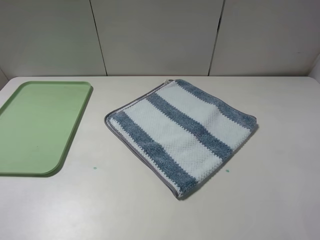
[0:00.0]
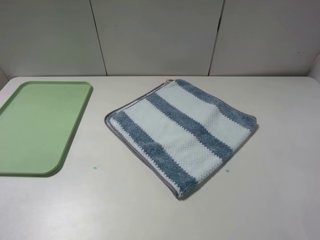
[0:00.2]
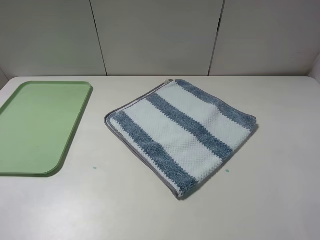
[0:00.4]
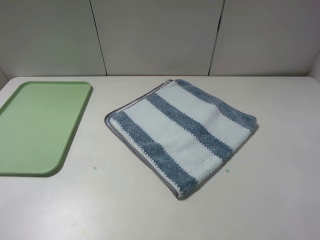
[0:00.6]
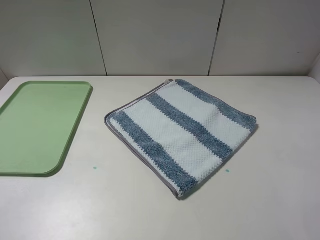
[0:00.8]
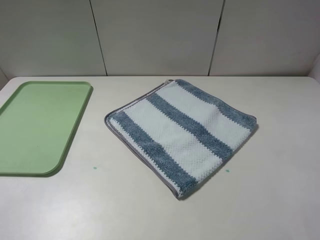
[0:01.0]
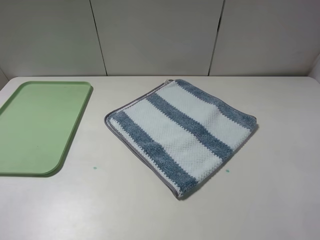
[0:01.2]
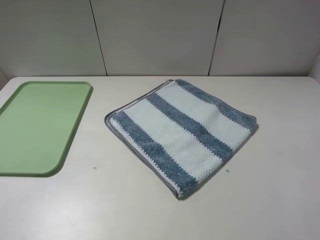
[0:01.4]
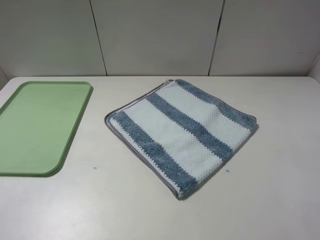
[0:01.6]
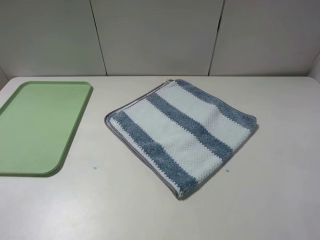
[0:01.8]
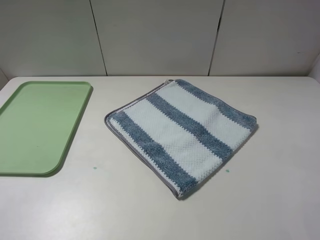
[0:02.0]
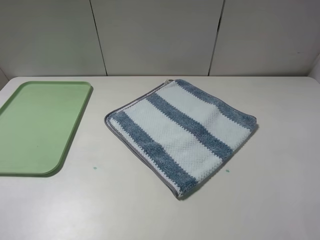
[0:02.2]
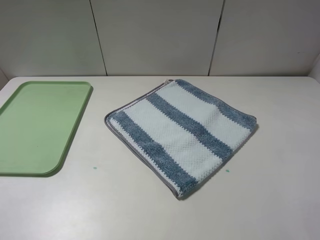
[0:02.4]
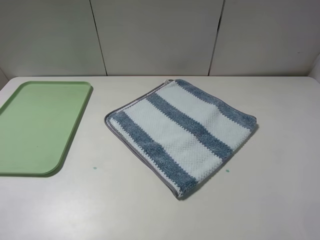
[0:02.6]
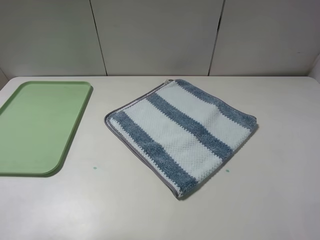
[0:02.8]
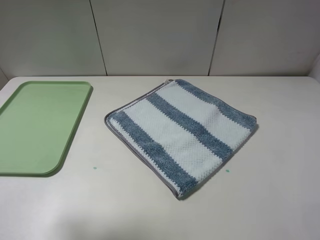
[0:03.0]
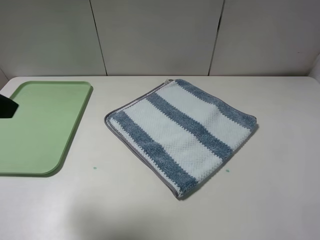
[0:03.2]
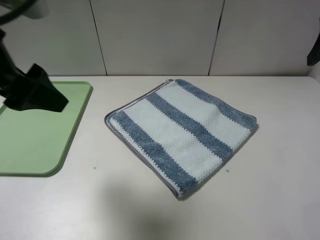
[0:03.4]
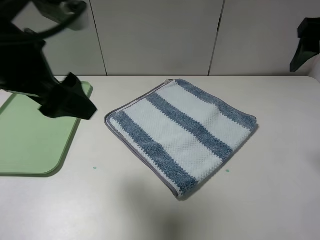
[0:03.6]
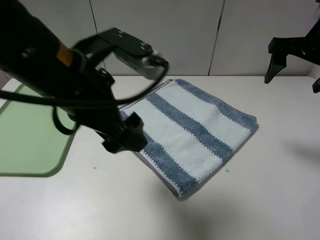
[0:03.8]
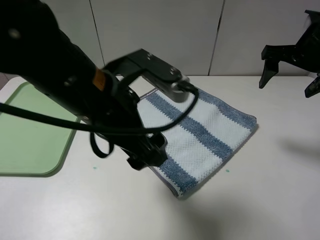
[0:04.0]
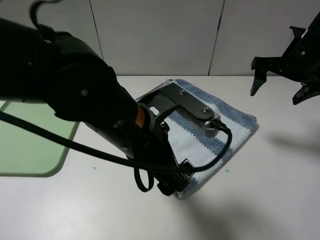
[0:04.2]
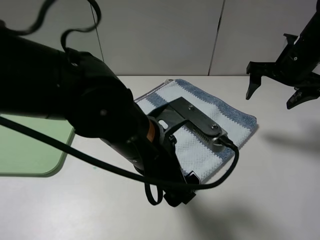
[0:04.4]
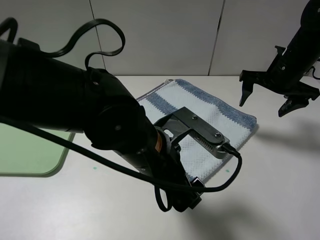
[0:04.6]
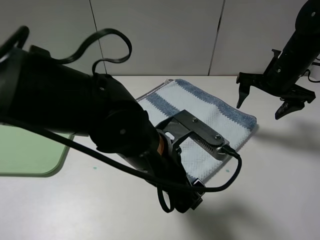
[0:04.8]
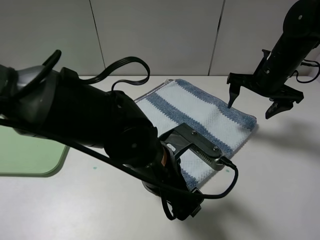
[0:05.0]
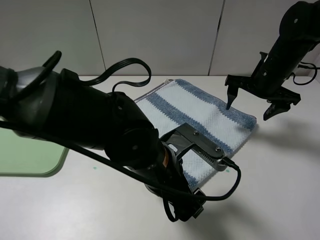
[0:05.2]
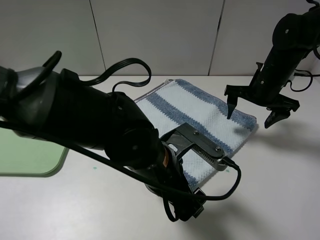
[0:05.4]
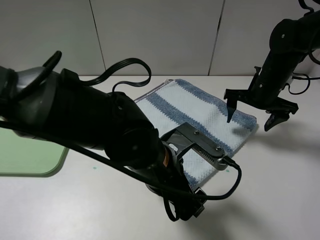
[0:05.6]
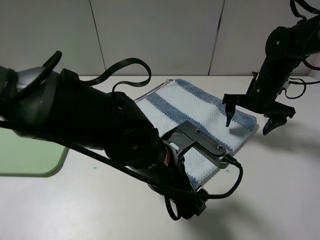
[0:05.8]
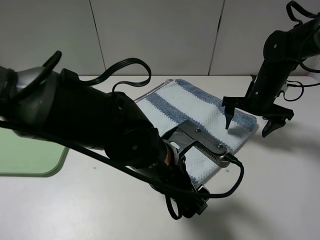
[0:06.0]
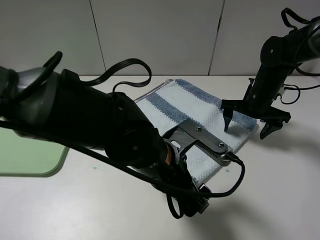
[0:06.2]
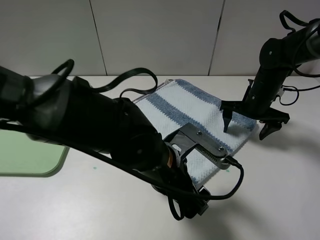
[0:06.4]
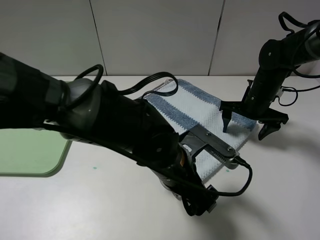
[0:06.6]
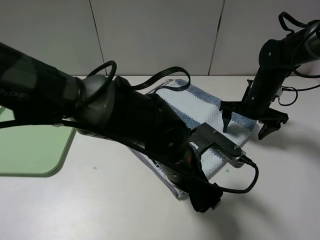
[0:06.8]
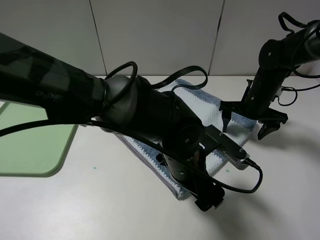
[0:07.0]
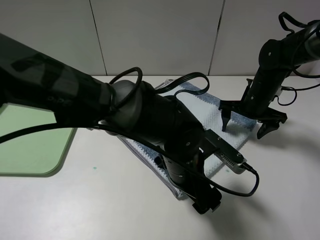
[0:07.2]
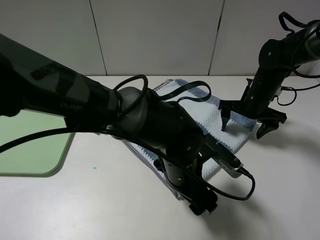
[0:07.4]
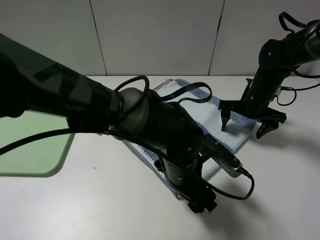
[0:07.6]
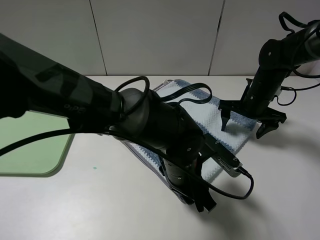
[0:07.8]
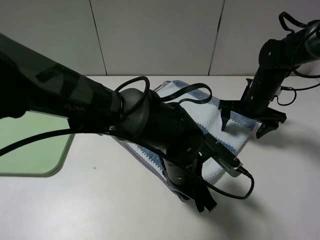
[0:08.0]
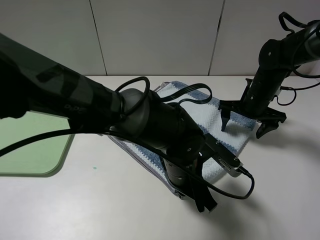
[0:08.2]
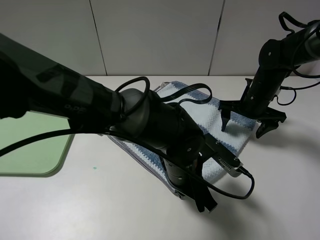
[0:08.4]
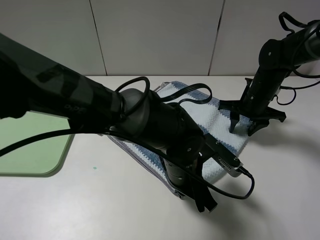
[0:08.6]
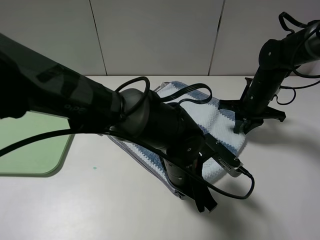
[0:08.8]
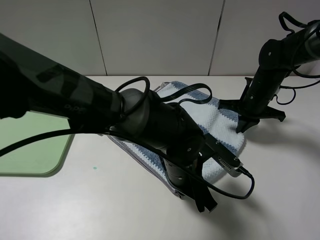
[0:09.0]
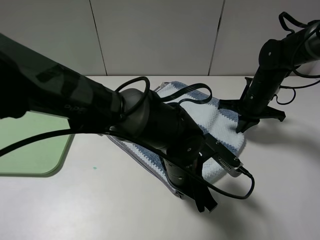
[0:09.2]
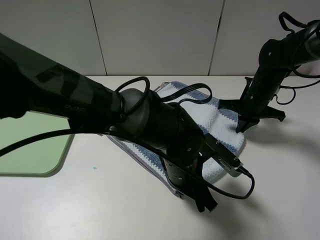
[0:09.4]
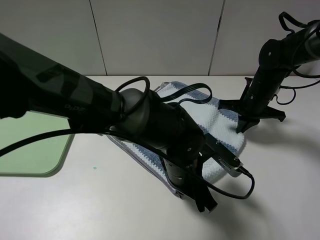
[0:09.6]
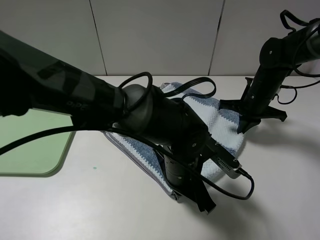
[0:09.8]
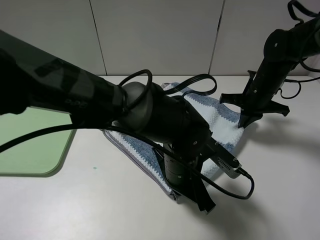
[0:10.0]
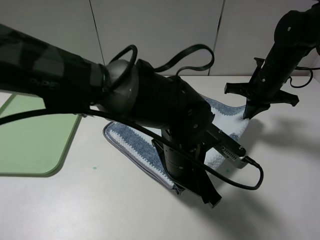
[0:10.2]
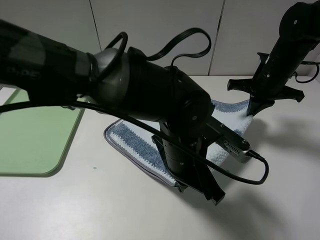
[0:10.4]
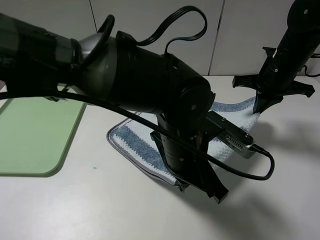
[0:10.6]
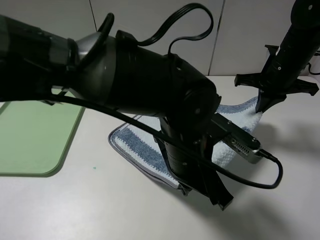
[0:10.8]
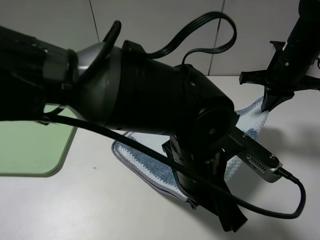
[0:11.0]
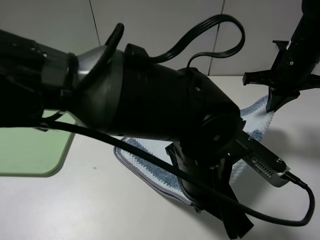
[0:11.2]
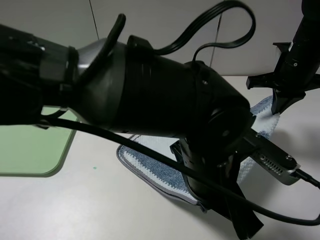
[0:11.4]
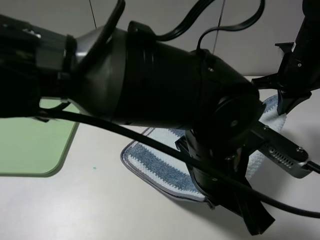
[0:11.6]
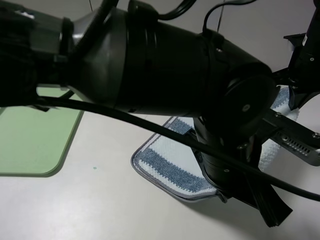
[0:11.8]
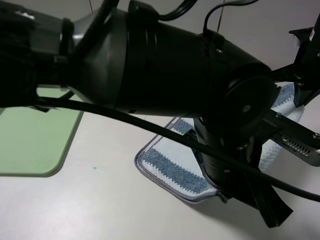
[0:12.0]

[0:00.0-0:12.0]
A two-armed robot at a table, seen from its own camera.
Step, 0:00.0 to 0:08.0: Grasp the blue white towel with the left gripper.
Step, 0:08.2 to 0:09.2: Grasp the blue white towel with the right gripper.
0:00.0 to 0:01.6: Both grippers stay put.
0:01.6 to 0:03.0: The grippers both shift forward and upward by some 15 cm.
0:03.0 to 0:04.4: The left gripper shifts approximately 30 cm to the right and downward. The right gripper travels forward and downward by about 25 cm.
0:04.4 to 0:06.0: The right gripper shifts some 10 cm downward.
0:06.0 to 0:07.6: The left gripper shifts some 5 cm downward.
0:07.6 to 0:09.0: The left gripper closes up. Meanwhile the right gripper closes its fingers.
0:09.0 to 0:10.4: Both grippers travel together upward, roughly 5 cm.
0:10.4 to 0:12.0: The grippers both shift upward by some 5 cm.

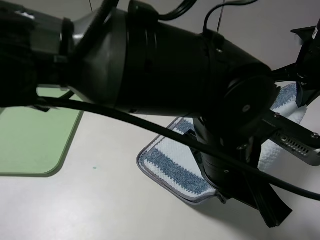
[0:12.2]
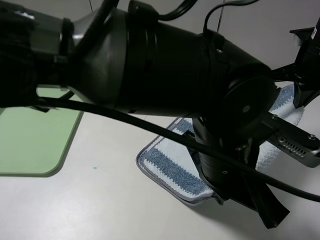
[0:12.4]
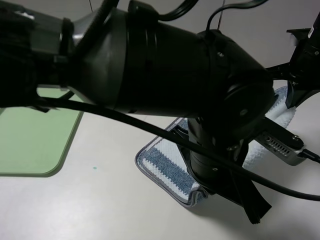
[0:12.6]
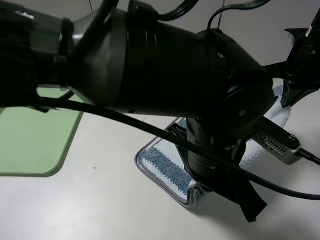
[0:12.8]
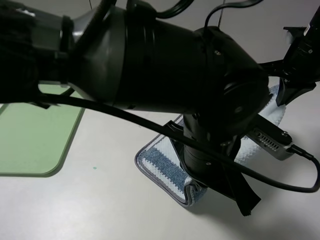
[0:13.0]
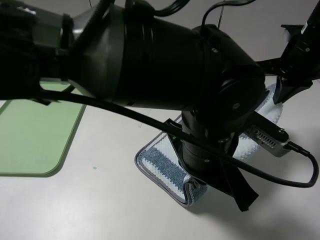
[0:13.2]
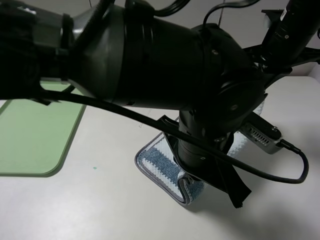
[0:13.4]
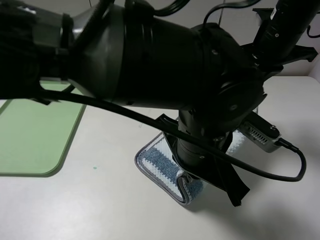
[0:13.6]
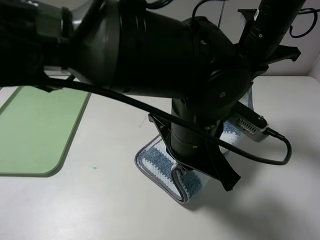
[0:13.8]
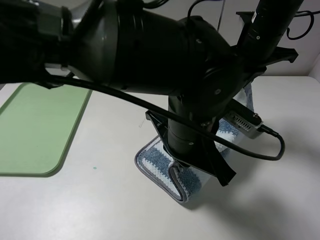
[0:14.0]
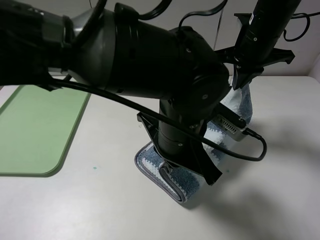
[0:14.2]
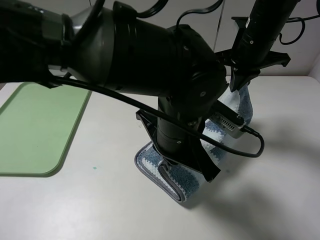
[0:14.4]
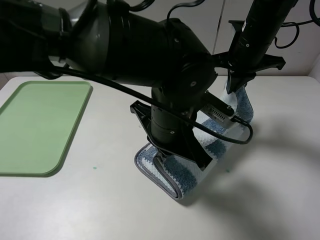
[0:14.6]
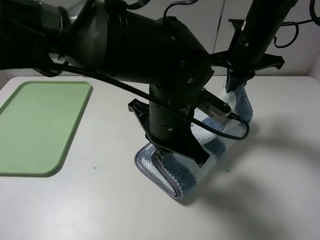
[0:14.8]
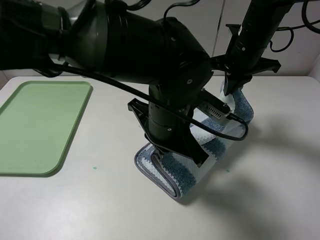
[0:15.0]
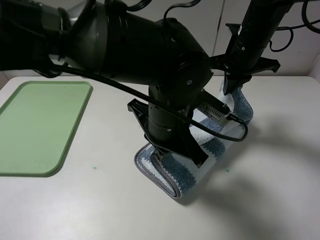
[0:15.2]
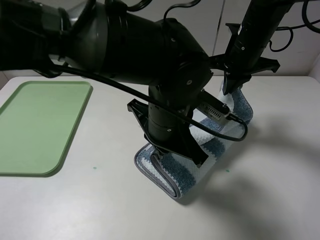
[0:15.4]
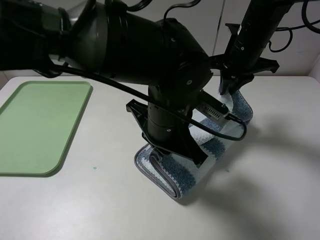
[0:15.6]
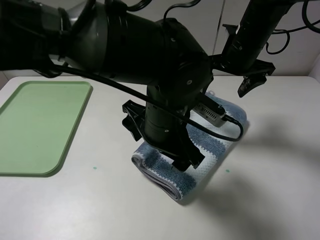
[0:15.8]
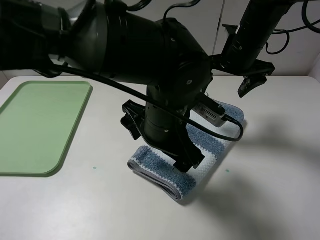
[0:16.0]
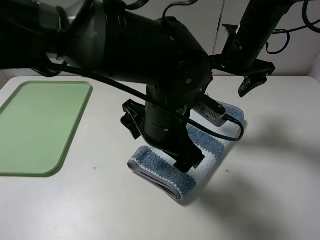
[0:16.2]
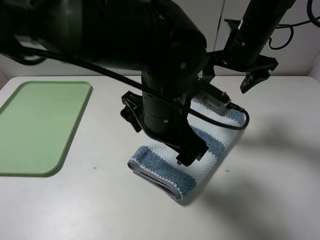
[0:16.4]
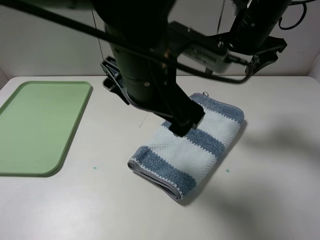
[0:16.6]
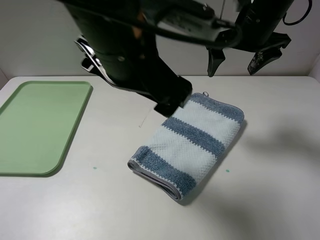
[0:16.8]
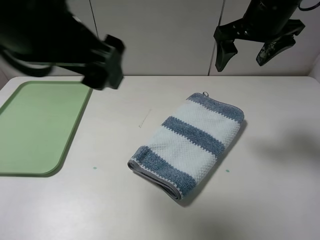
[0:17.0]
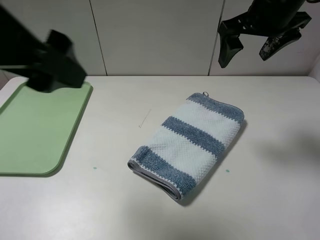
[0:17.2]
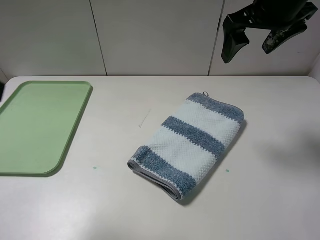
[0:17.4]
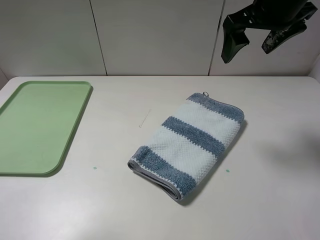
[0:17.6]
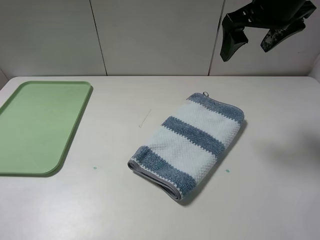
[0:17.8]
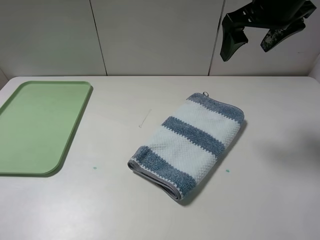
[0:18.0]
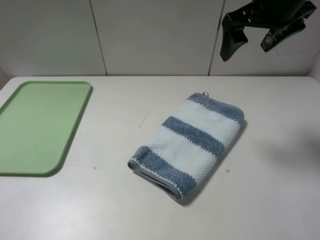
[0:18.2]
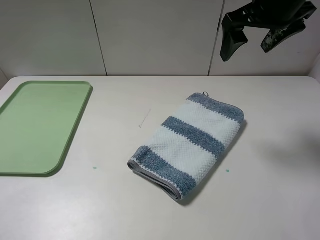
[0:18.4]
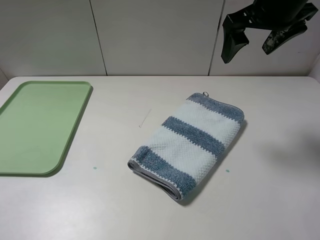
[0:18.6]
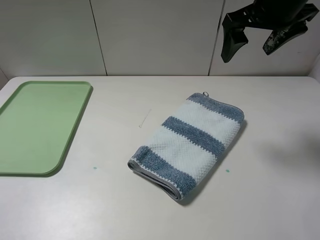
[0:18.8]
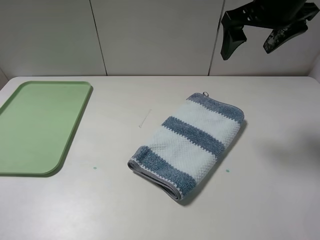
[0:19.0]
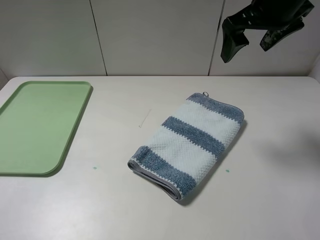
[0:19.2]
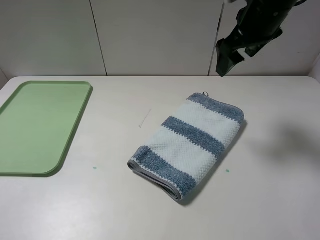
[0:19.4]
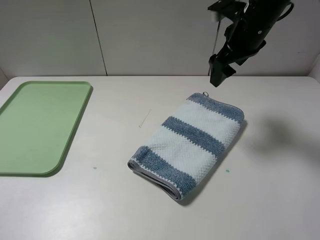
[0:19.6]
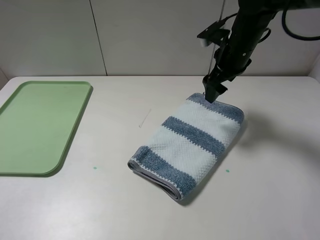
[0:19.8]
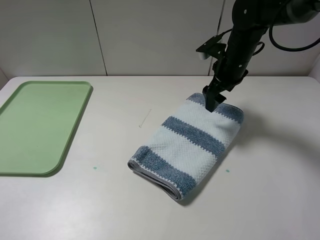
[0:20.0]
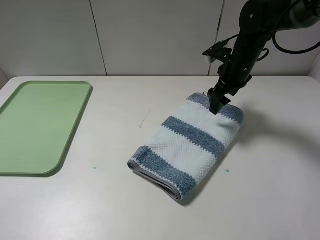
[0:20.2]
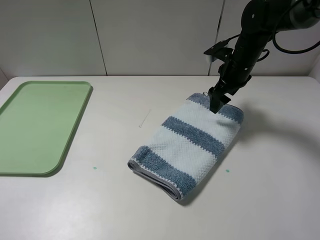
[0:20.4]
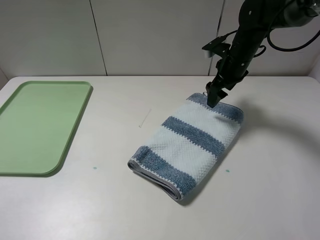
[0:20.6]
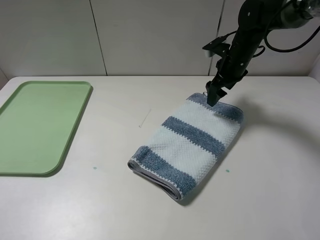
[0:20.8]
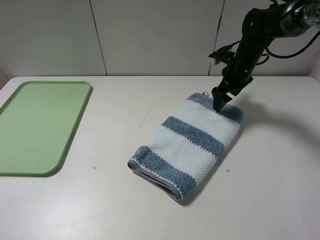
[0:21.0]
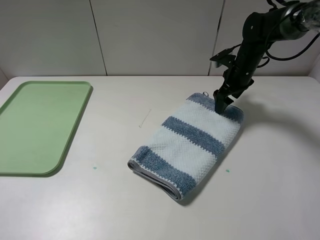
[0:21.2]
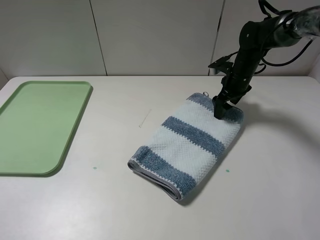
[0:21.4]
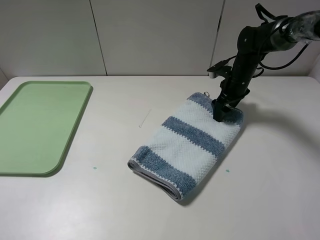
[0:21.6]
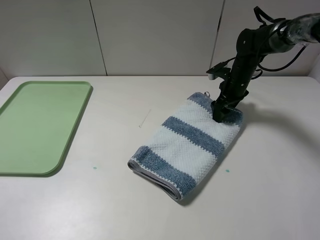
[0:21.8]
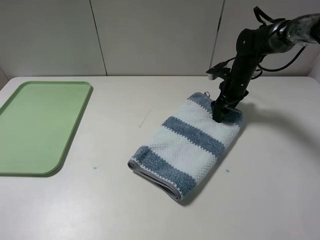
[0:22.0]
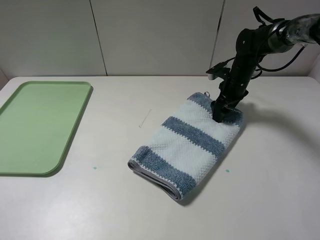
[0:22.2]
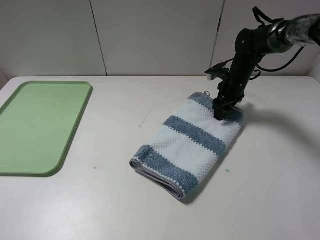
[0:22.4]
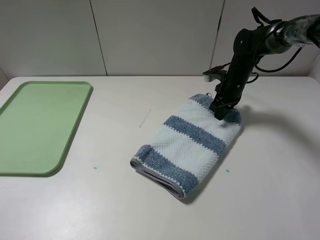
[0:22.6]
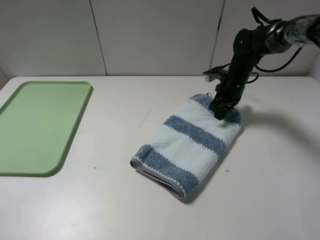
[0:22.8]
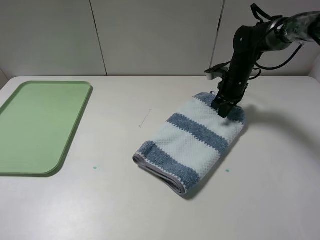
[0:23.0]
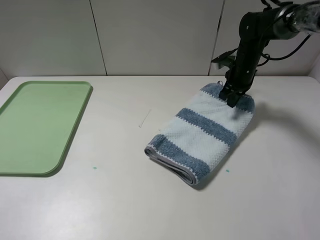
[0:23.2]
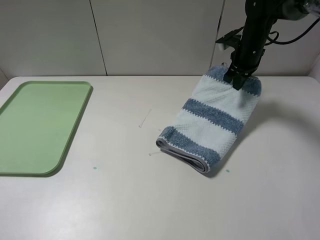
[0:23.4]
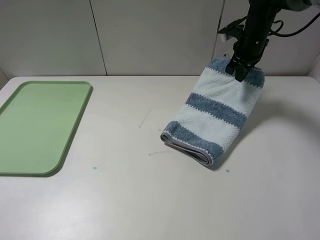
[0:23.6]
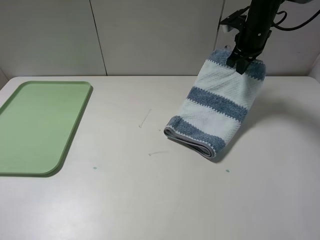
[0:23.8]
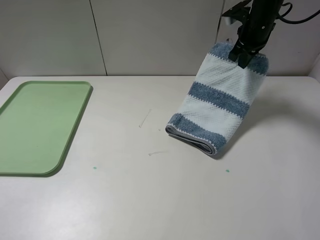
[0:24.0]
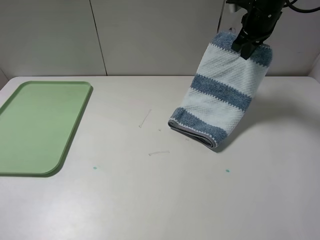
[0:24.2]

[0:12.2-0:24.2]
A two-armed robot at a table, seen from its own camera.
Step, 0:12.2 to 0:15.8: Fold the blue white towel upwards with the left gripper.
Step, 0:16.0 to 0:23.2: Grasp the blue white towel with the right gripper.
0:12.2 to 0:13.8: The right gripper is displaced to the left by roughly 10 cm.
0:13.8 to 0:15.2: The left gripper ends up about 5 cm from where it was.
0:15.2 to 0:16.6: The right gripper opens up, while the left gripper shifts approximately 10 cm upward, and opens.
0:16.6 to 0:18.2: The left gripper heads to the left and backward, covering about 35 cm; the right gripper shifts some 5 cm upward.
0:18.2 to 0:19.8: The right gripper is displaced downward and forward by approximately 15 cm.
0:19.8 to 0:21.2: The right gripper moves downward, forward and to the right, about 10 cm.
0:21.2 to 0:22.6: The right gripper closes its fingers.
0:22.6 to 0:24.2: The right gripper travels upward by roughly 20 cm.
